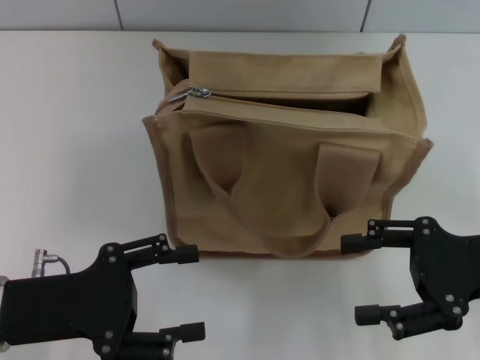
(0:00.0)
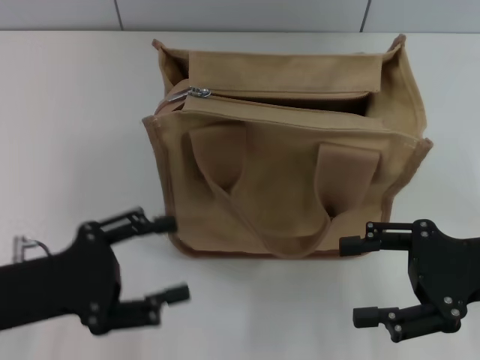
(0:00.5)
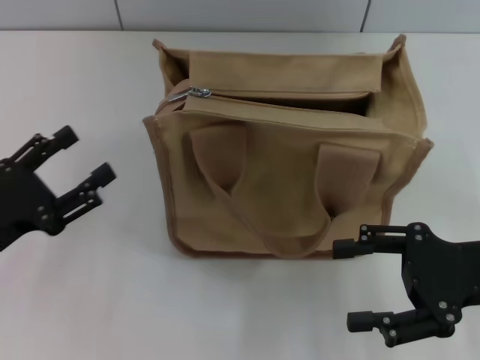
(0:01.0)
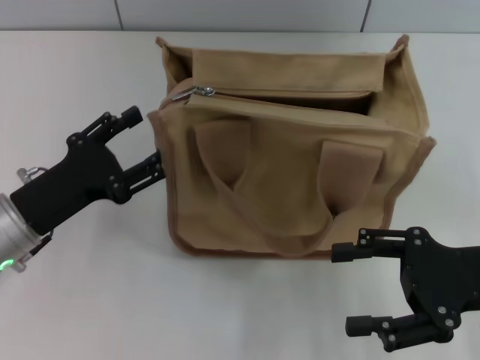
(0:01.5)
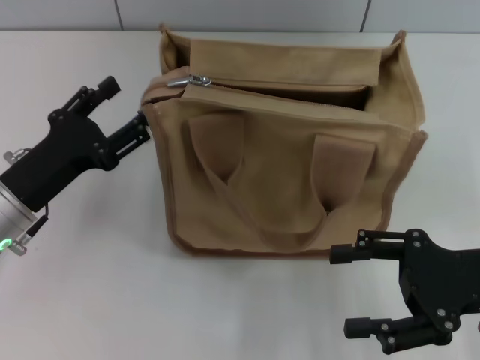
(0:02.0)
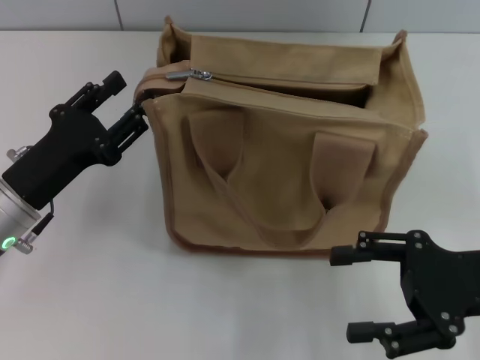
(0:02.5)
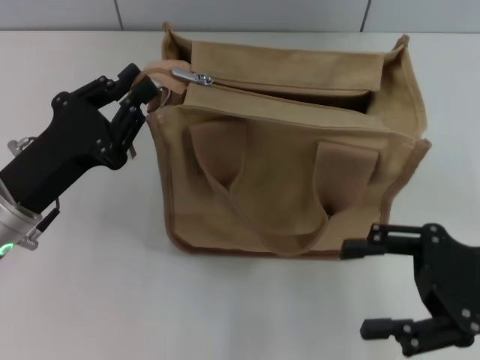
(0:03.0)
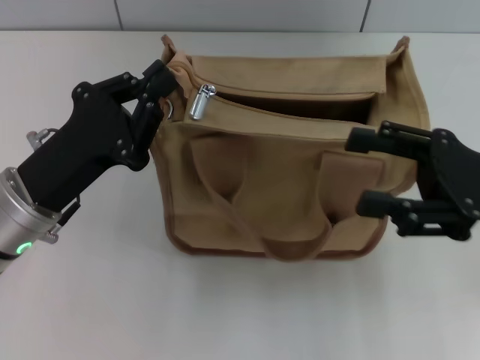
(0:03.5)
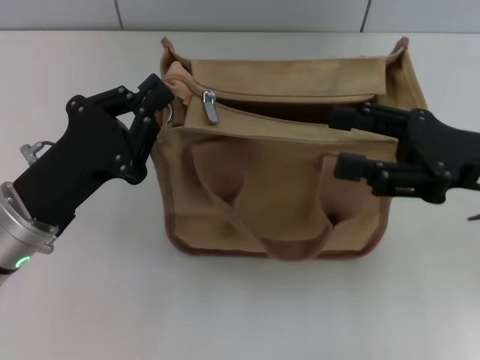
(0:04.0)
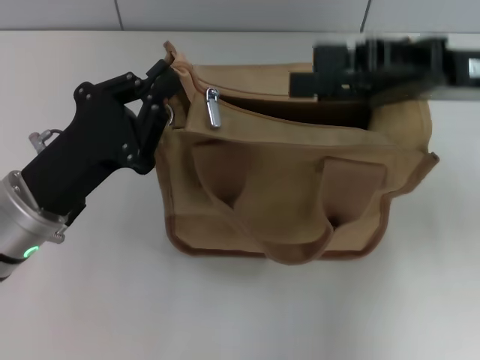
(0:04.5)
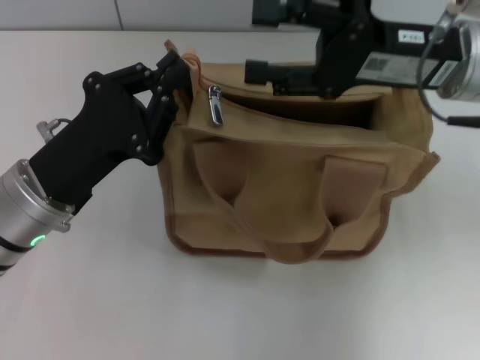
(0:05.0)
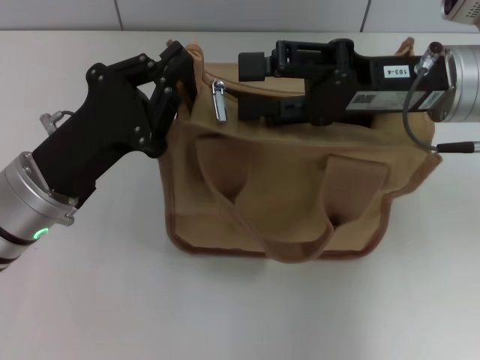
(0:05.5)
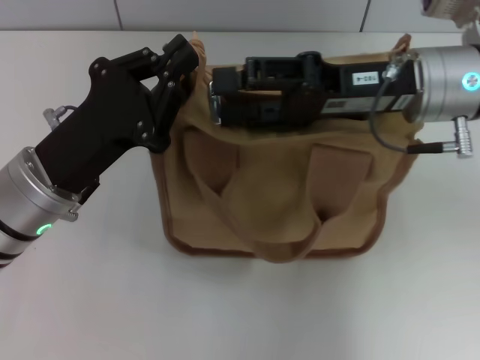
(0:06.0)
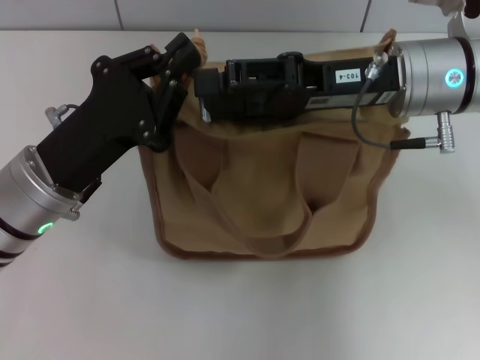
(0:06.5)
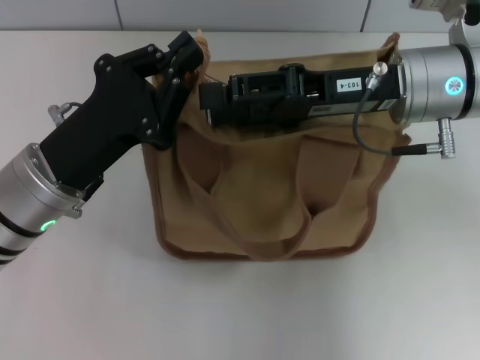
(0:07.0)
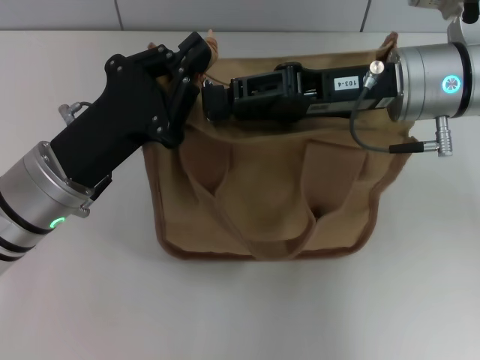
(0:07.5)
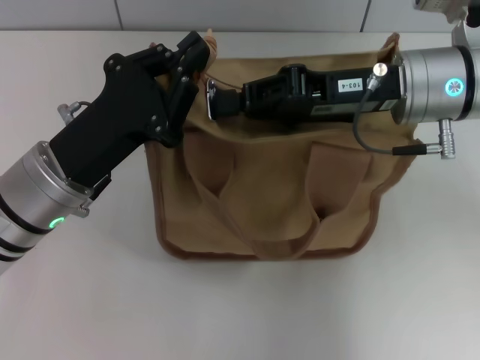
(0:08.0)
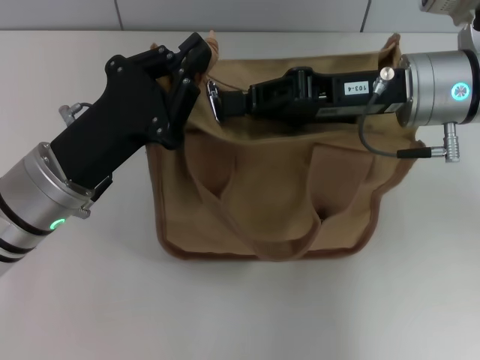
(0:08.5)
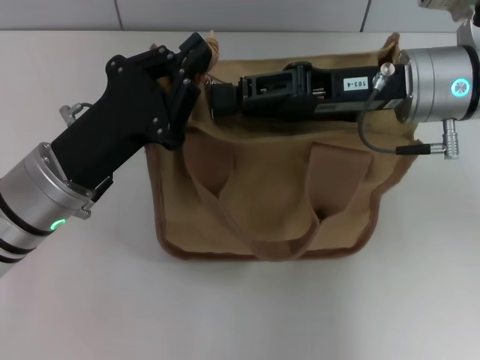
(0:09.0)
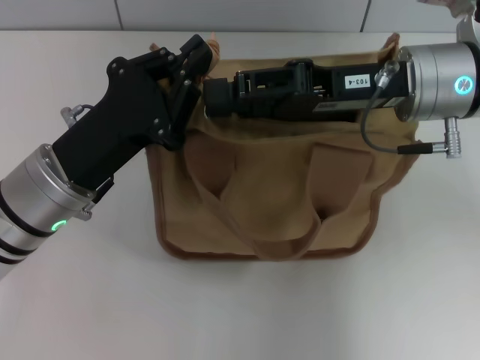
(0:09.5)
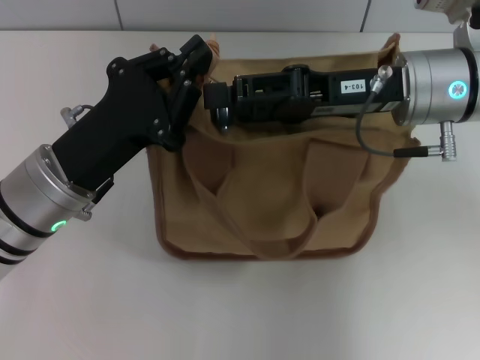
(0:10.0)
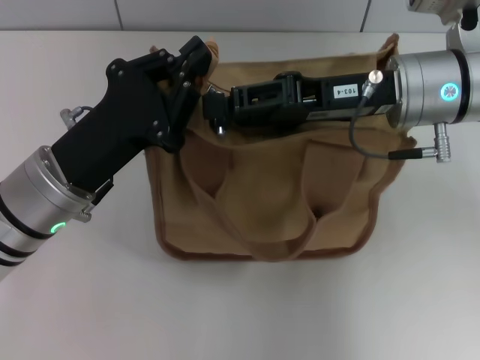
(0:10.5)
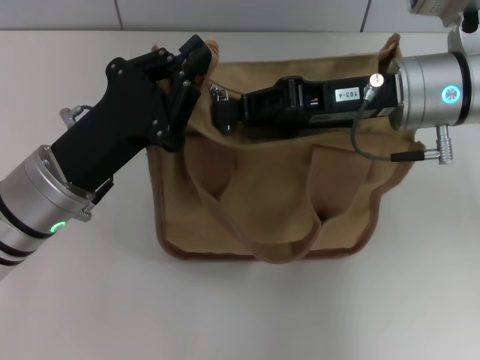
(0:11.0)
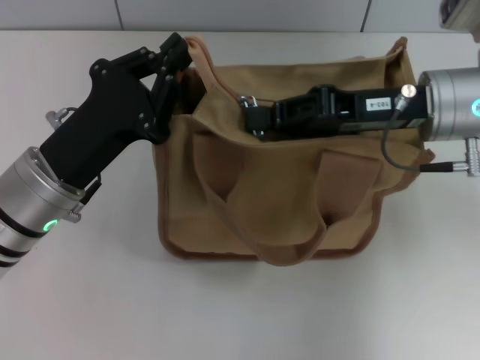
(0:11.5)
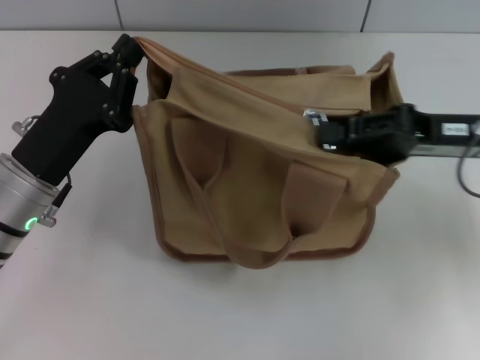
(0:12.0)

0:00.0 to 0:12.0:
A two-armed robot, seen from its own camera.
0:00.0 to 0:02.0: The left gripper moves forward, about 5 cm.
0:02.0 to 0:04.0: The right gripper goes approximately 5 cm forward. The left gripper closes.
0:04.0 to 0:06.0: The right gripper goes approximately 10 cm to the left and forward.
0:06.0 to 0:08.0: The right gripper closes up.
0:08.0 to 0:10.0: The right gripper opens up.
0:10.0 to 0:12.0: The right gripper travels to the right by approximately 10 cm, and closes.

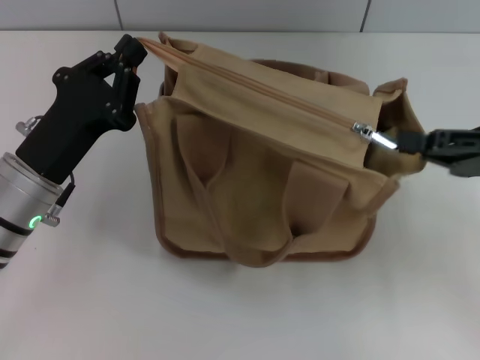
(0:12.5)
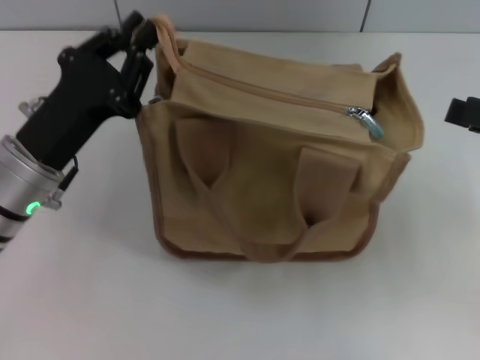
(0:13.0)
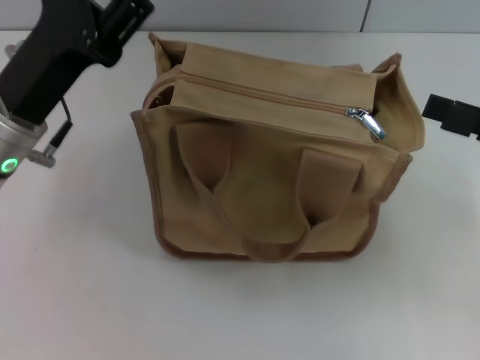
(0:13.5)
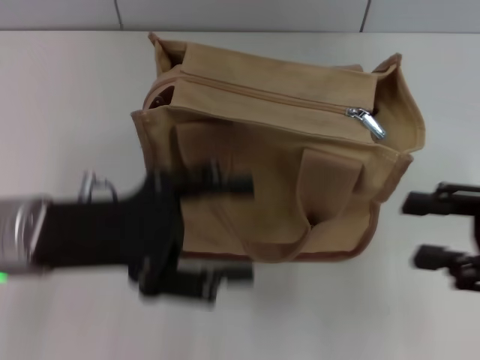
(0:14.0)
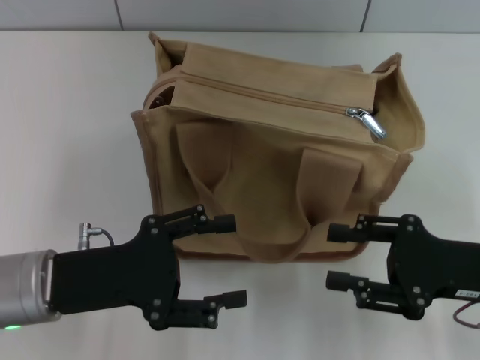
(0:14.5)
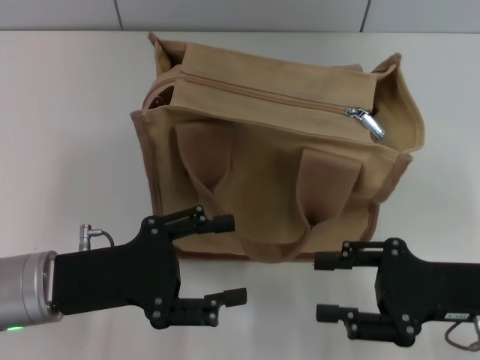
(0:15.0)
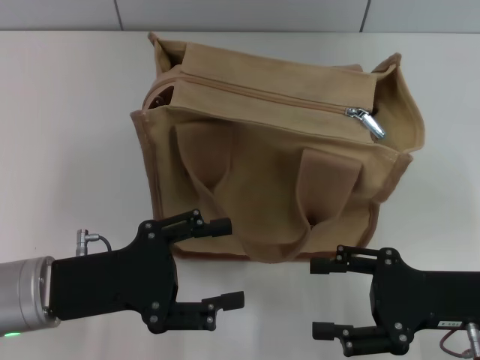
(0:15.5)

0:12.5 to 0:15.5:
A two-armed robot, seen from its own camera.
Step, 0:13.0 to 0:13.5: Grab the zipper with your left hand.
0:12.5 to 0:14.0: The right gripper heads backward, covering about 5 cm, and opens, while the left gripper ends up approximately 5 cm from where it was, and opens.
0:14.0 to 0:15.5: The right gripper moves downward and to the left, some 10 cm. Meanwhile the left gripper travels downward by approximately 5 cm.

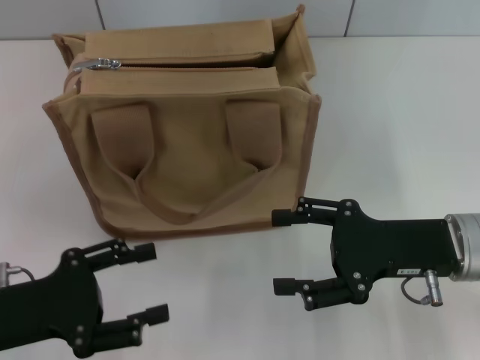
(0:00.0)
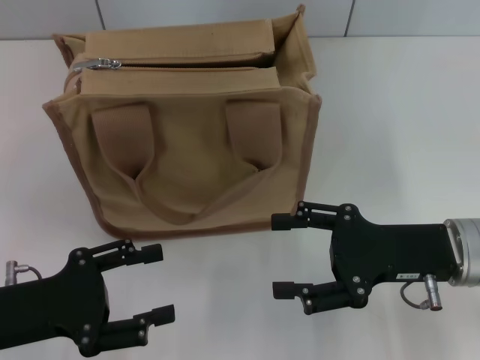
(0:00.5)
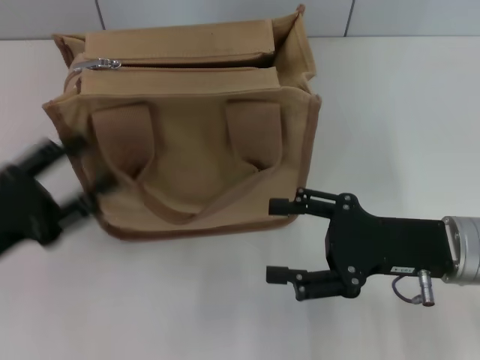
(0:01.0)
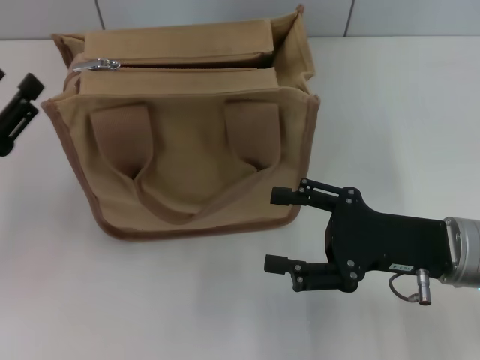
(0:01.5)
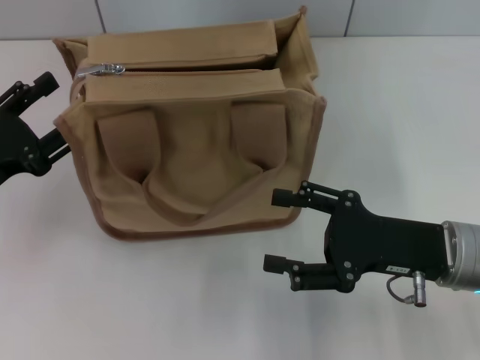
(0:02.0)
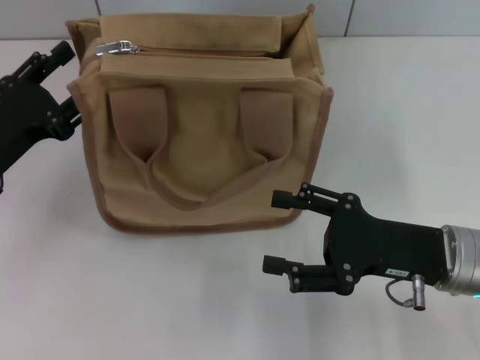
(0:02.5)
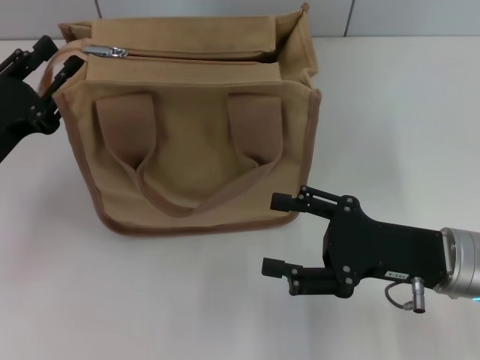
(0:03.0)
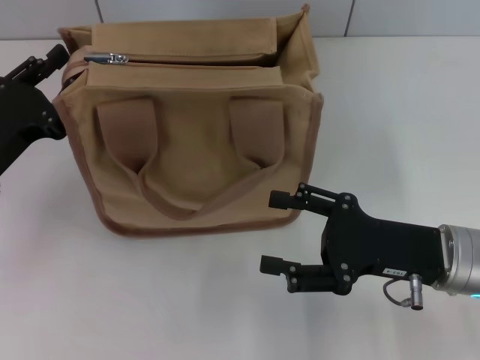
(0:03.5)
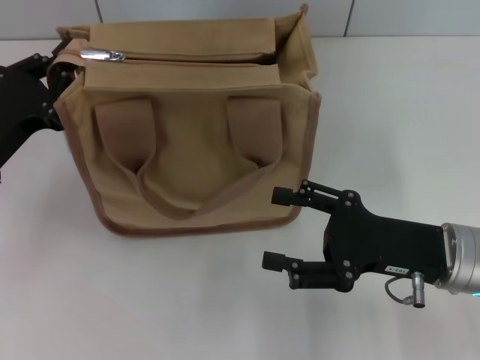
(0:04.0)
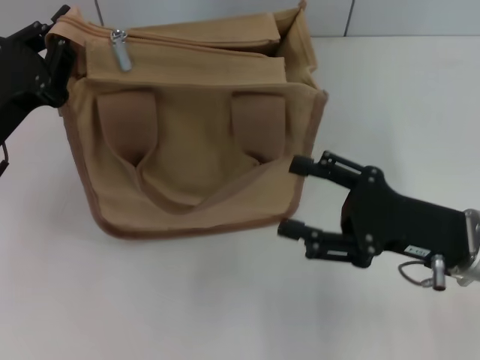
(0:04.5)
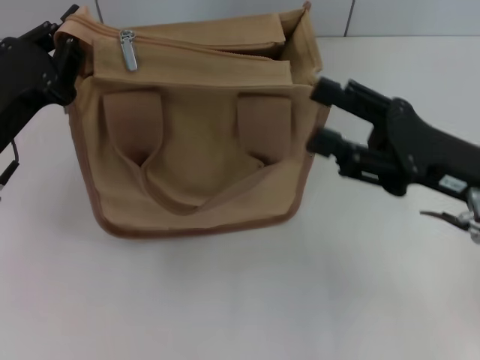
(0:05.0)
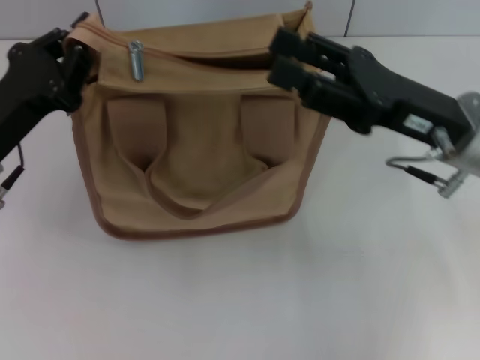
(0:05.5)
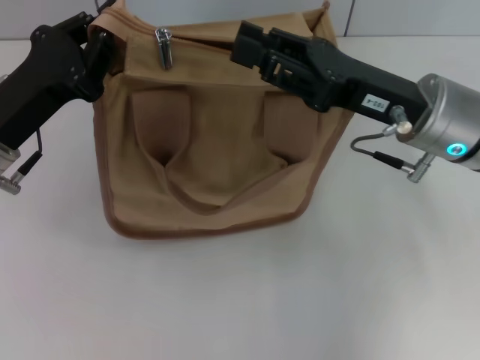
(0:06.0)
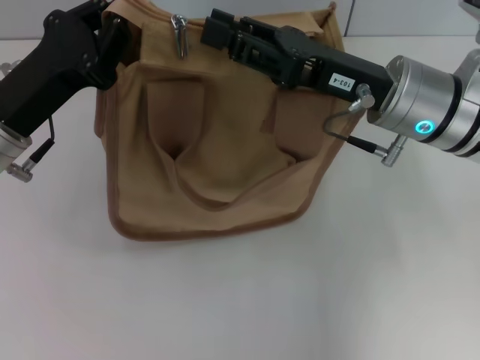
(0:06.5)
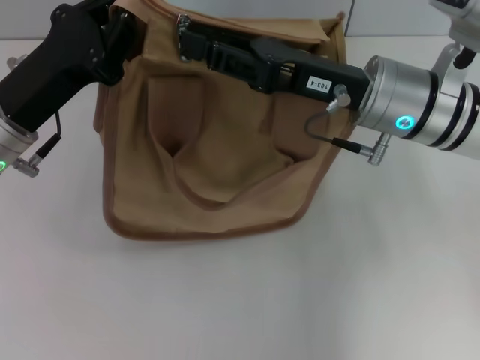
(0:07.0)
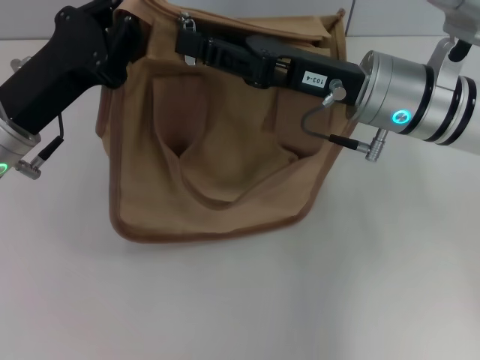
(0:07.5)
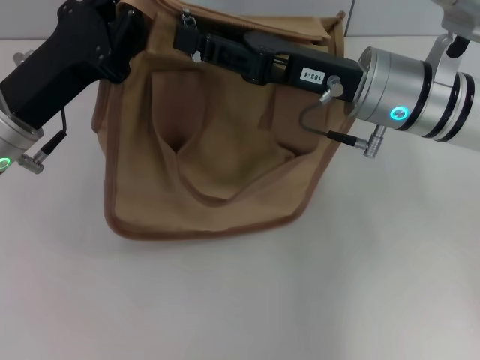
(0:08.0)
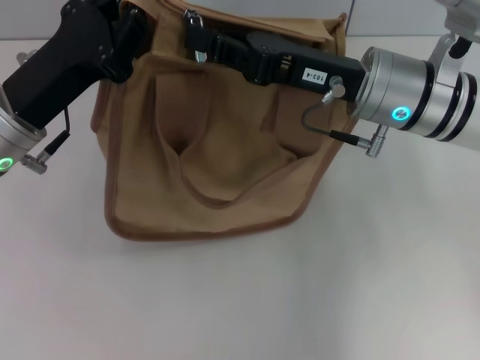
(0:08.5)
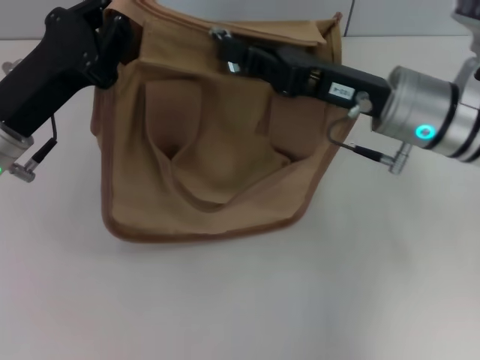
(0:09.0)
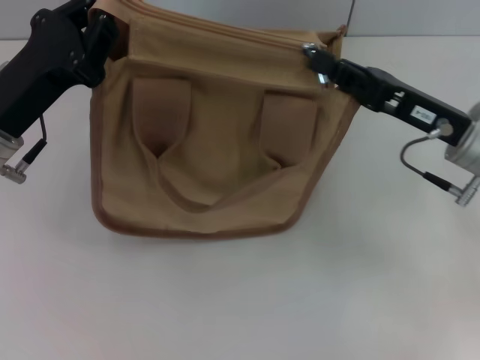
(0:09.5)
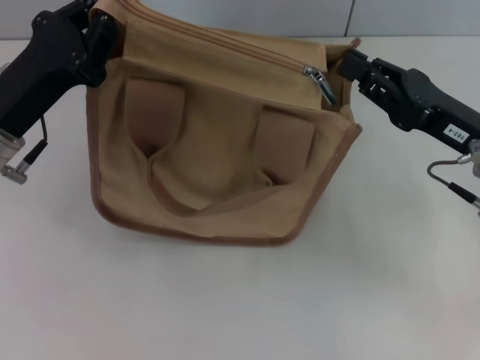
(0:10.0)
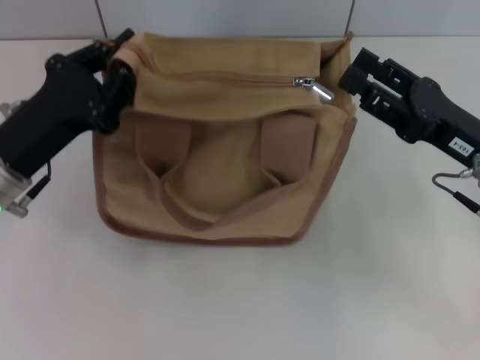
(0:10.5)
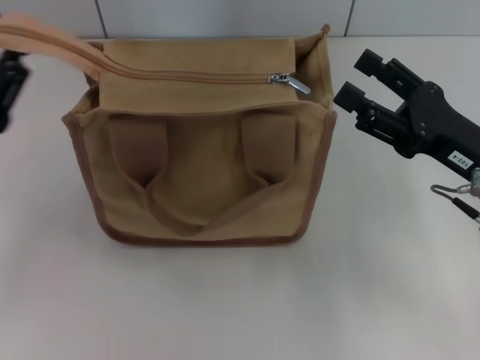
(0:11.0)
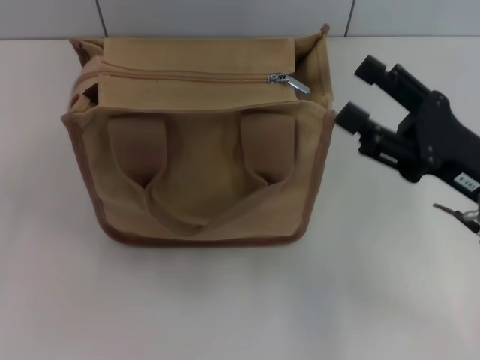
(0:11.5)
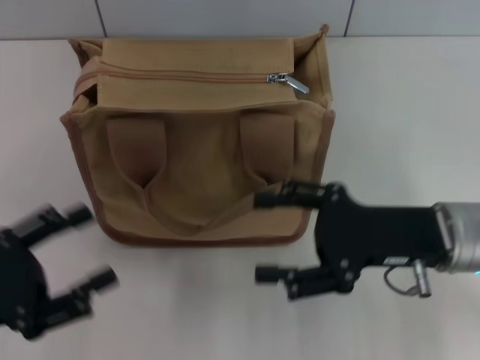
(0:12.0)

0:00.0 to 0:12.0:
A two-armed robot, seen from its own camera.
Step, 0:00.0 to 0:10.0: Pull up the zipper with your right hand.
Step, 0:10.5 to 0:11.0: Grab the zipper with your left hand.
0:00.0 to 0:02.0: The left gripper moves forward, approximately 5 cm.
0:02.0 to 0:04.0: The left gripper closes its fingers.
0:04.0 to 0:06.0: The right gripper travels forward and upward by about 10 cm, and closes up.
0:08.0 to 0:10.0: The right gripper goes roughly 15 cm to the right and backward.
0:10.0 to 0:12.0: The left gripper travels backward and to the left by approximately 15 cm, and opens up. Meanwhile the right gripper changes place by about 5 cm, and opens its fingers.
